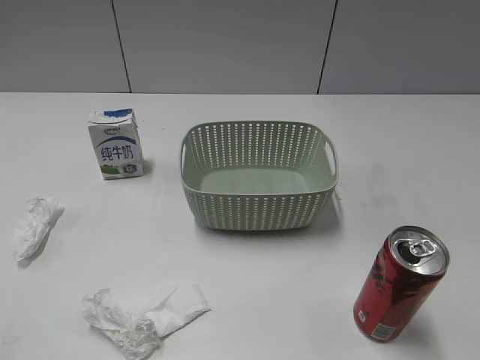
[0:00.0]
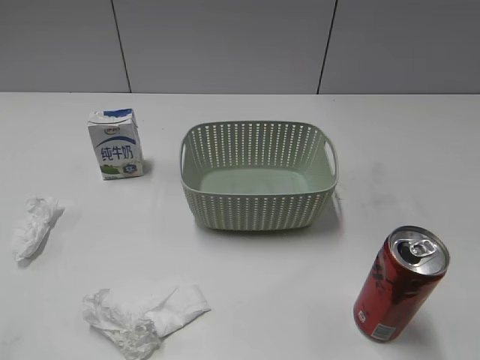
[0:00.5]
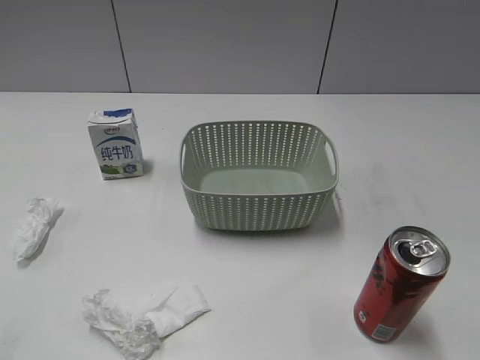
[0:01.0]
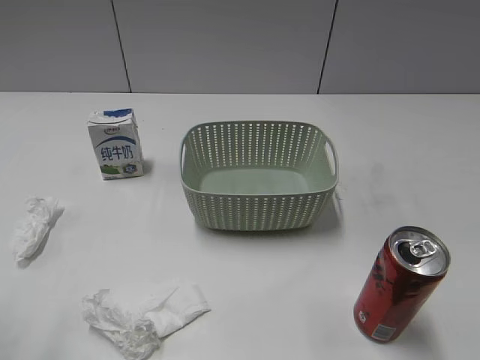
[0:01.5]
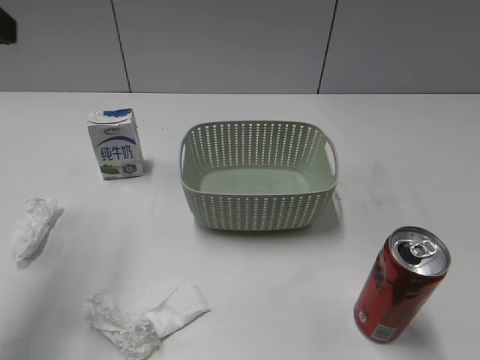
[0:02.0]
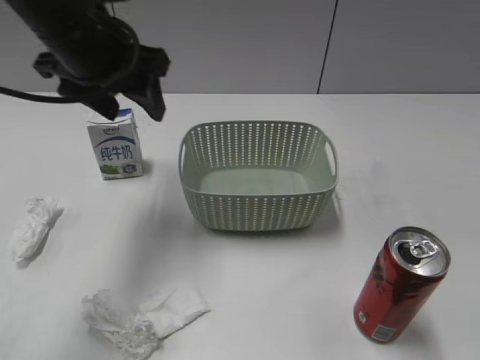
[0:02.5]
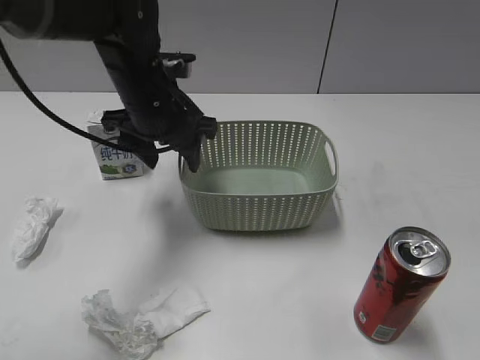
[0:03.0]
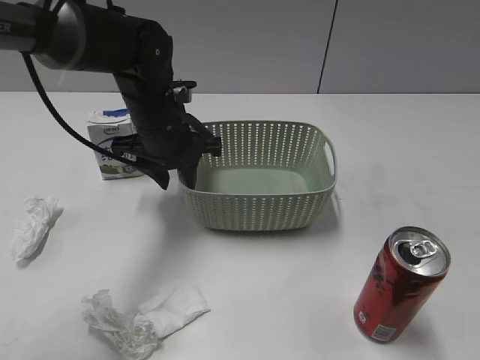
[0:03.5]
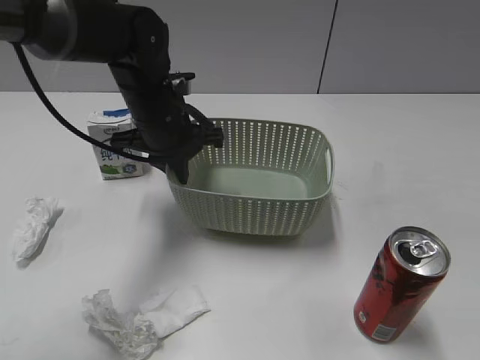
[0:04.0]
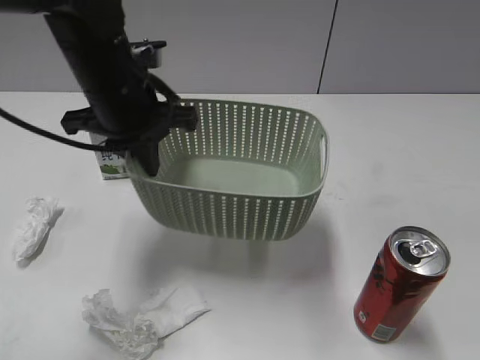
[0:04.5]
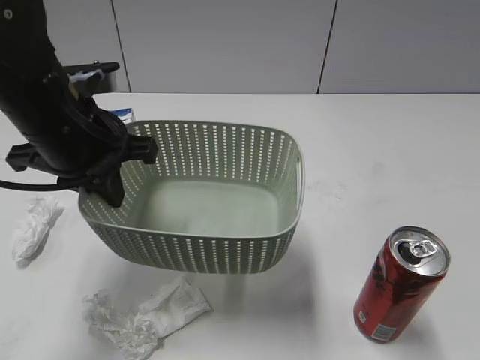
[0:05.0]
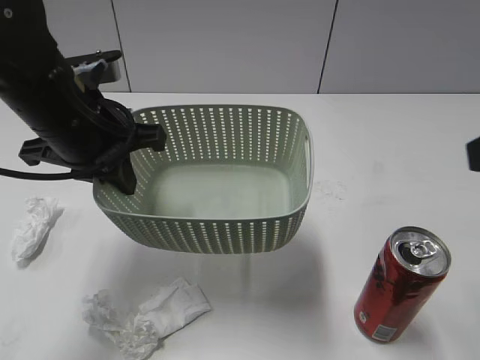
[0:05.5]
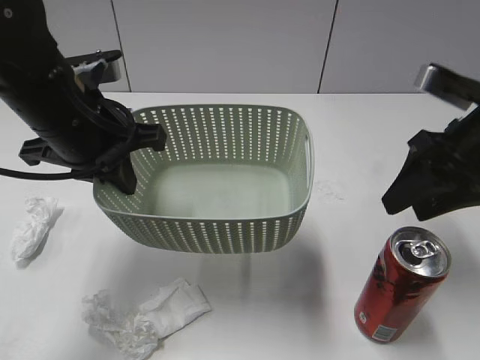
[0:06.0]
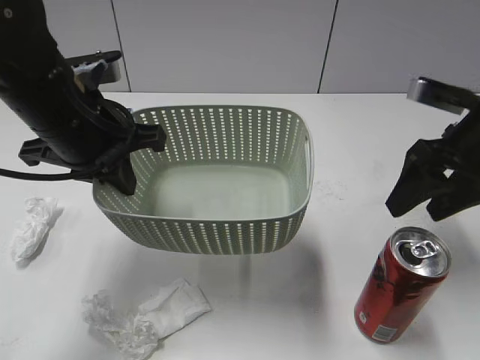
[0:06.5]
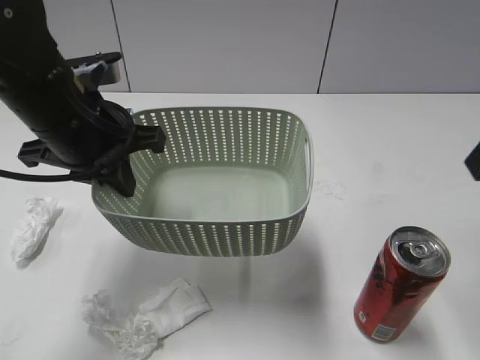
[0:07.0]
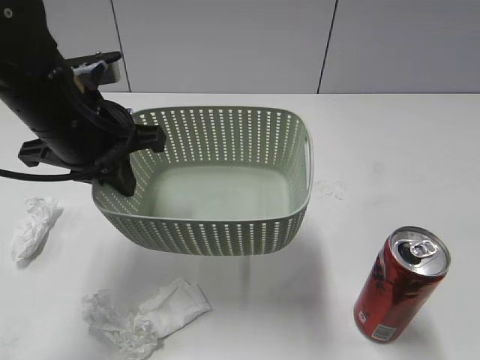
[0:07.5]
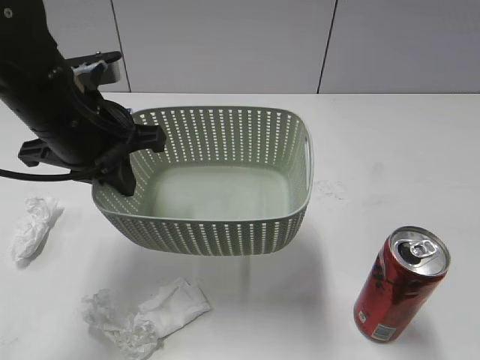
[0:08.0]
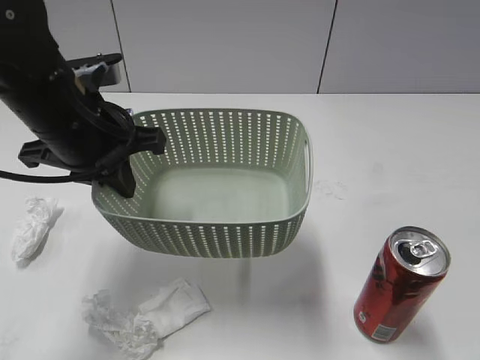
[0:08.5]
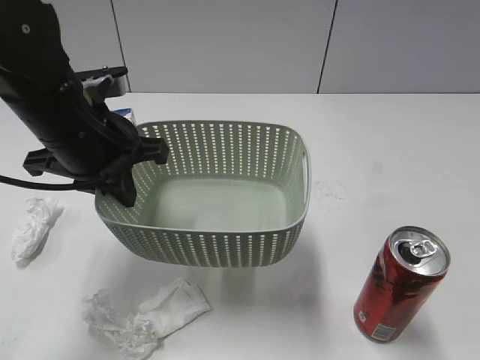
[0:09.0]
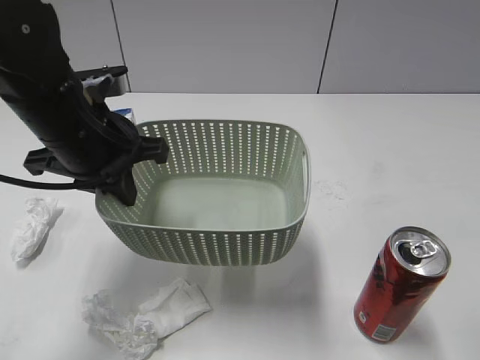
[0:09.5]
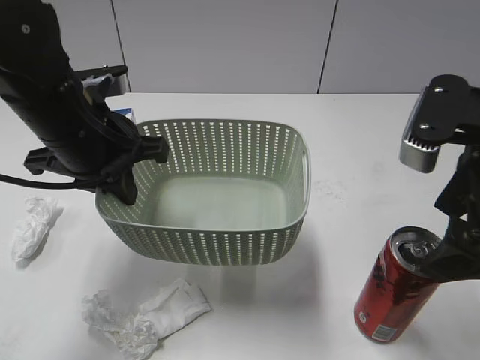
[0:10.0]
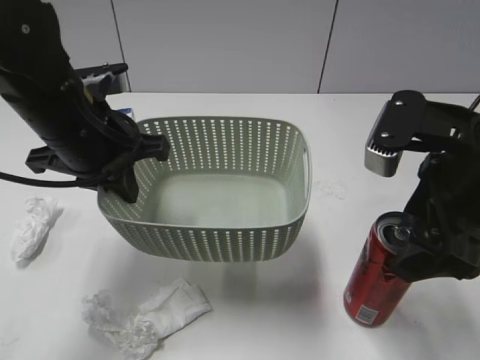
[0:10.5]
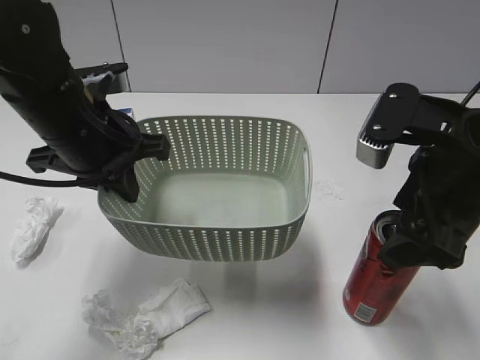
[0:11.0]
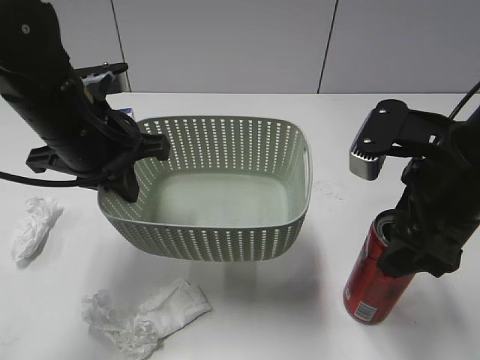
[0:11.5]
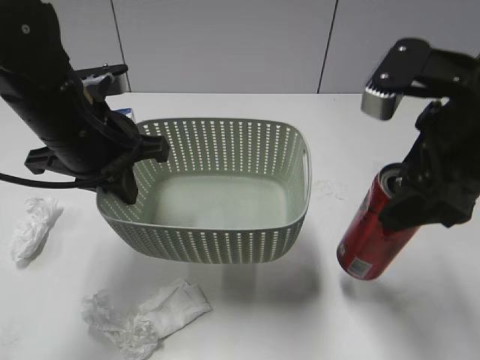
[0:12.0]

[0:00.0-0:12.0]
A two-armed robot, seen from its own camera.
Step, 0:02.0 to 0:03.5: Grasp the basket with left gripper.
Step, 0:04.0 to 0:05.0: Lift the basket with left gripper.
Step, 0:05.5 to 0:11.5: Grasp the cola can with right gripper.
0:02.0 to 0:04.0: The left gripper heads downward, to the right and forward, covering some 30 cm, and closes up.
0:04.0 to 0:06.0: The left gripper goes some 15 cm backward, upward and to the left; the right gripper goes approximately 25 cm forward, and closes up.
0:06.0 to 0:08.0: The right gripper moves backward, roughly 25 cm, and opens up.
0:08.0 to 0:10.0: The right gripper is displaced forward and to the left by roughly 20 cm.
0:10.0 to 0:12.0: The right gripper closes up.

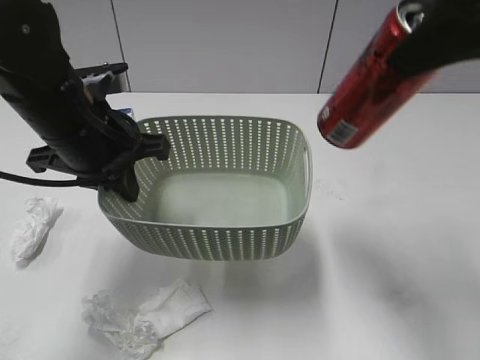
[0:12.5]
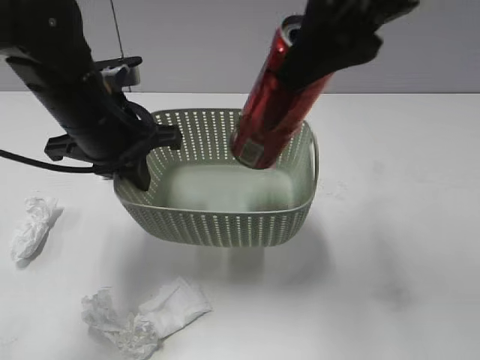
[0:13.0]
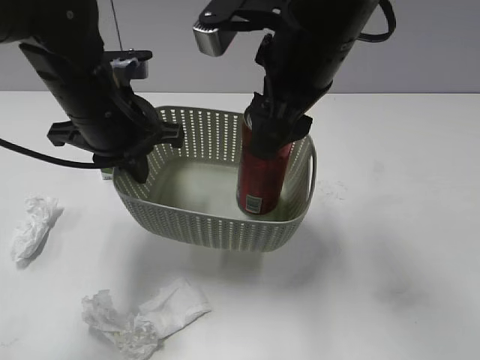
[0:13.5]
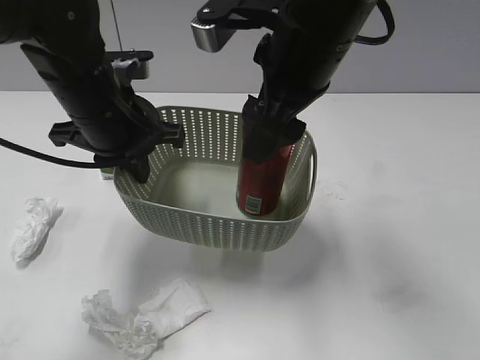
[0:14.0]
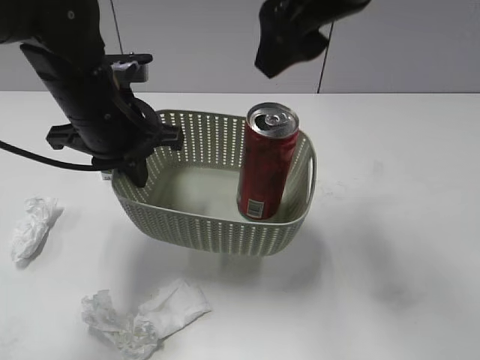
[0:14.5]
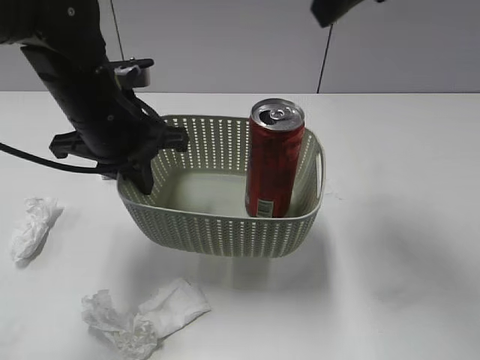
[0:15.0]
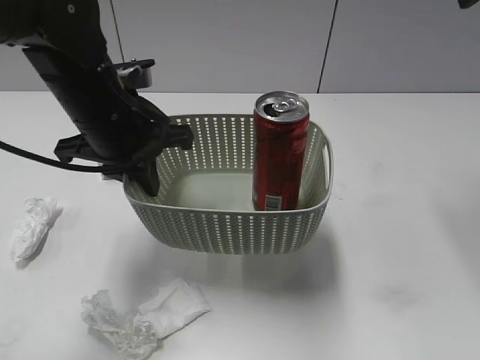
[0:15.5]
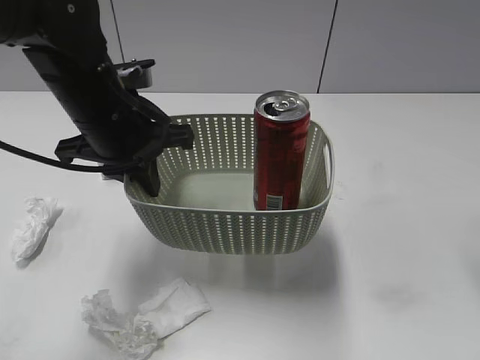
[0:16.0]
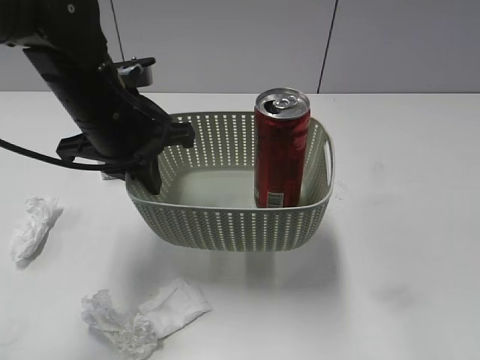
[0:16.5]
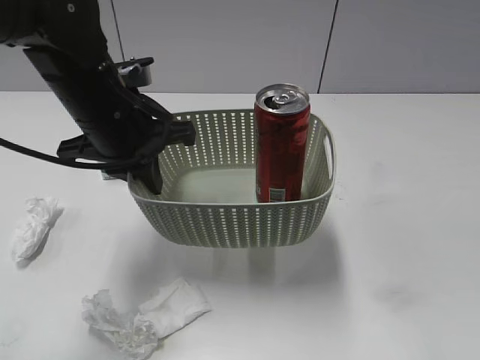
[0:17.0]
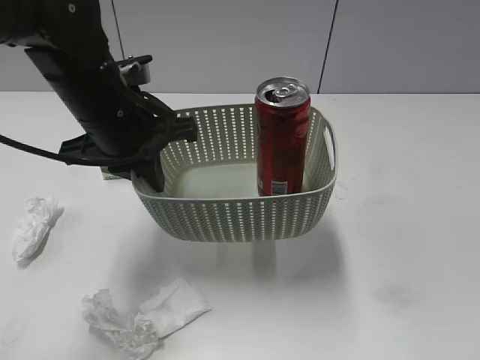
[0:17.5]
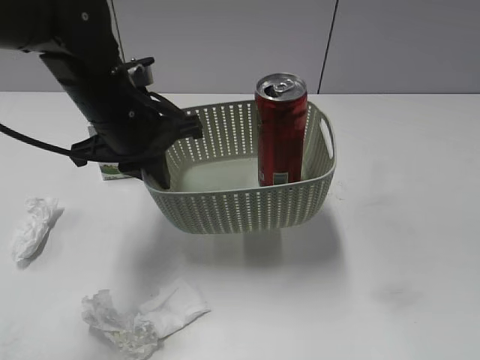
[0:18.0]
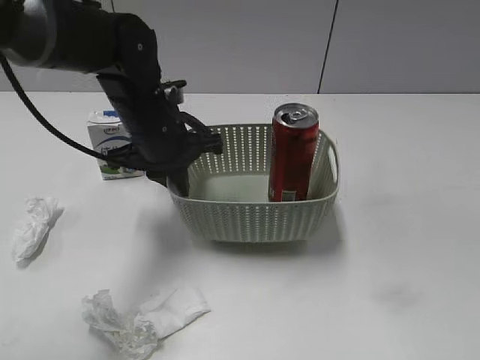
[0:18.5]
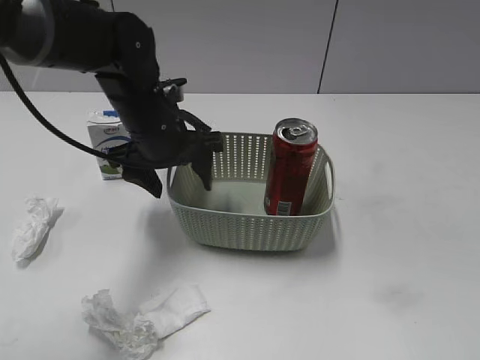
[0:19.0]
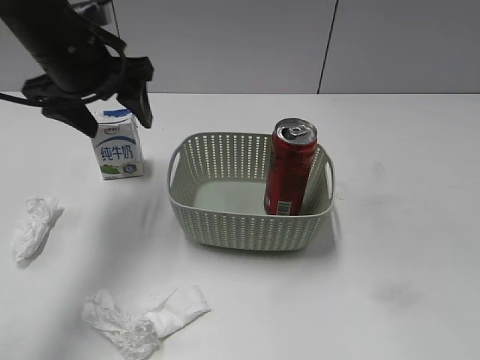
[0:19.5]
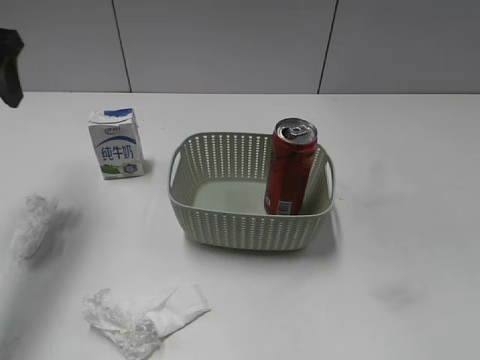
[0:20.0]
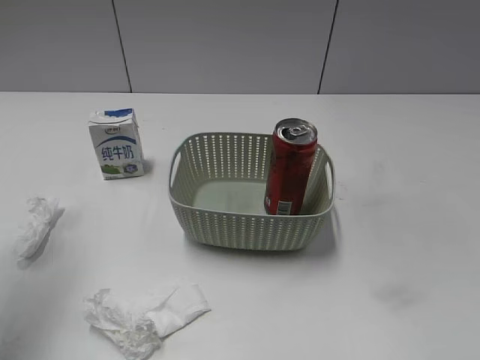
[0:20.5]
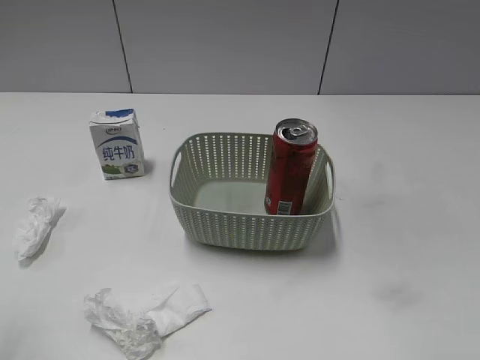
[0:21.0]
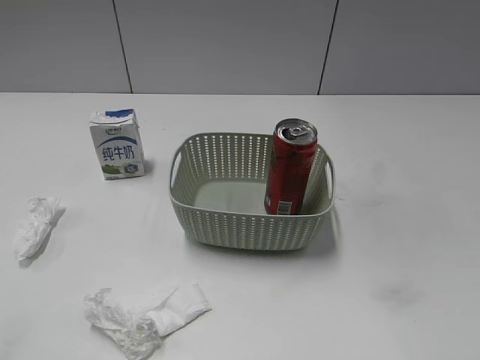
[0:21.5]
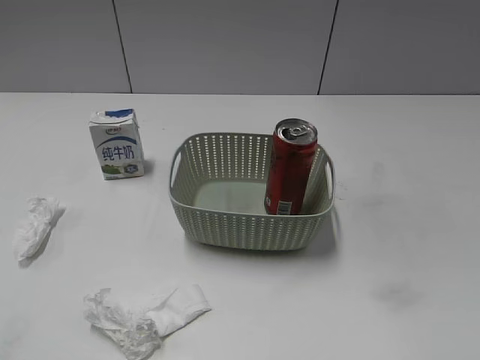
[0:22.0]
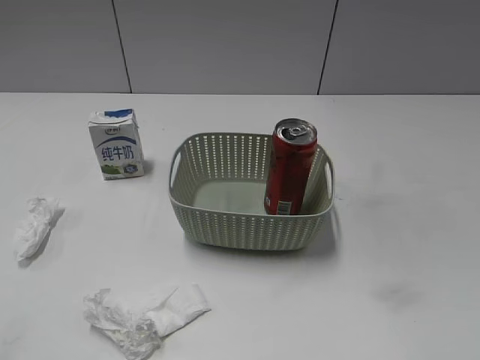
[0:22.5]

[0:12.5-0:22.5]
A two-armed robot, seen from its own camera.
0:12.5 to 0:14.5: The right gripper travels to the left and forward by about 10 cm, and opens.
0:14.5 to 0:16.5: The right gripper goes about 25 cm to the right and backward.
0:16.5 to 0:18.5: The left gripper heads downward, covering some 5 cm; the right gripper goes some 10 cm backward and downward.
0:18.5 to 0:20.5: The left gripper shifts approximately 30 cm to the left, upward and backward, and opens.
0:20.5 to 0:22.5: The left gripper heads backward, covering about 25 cm.

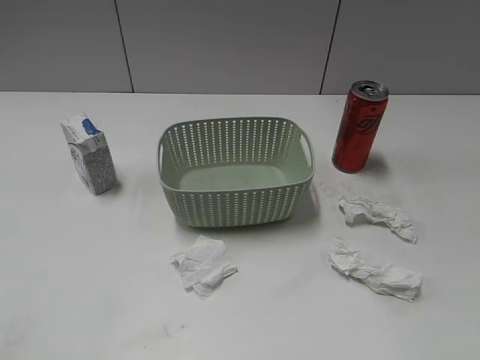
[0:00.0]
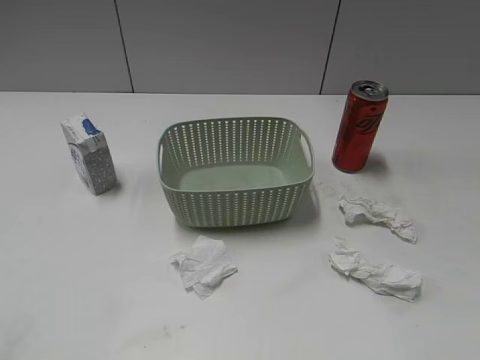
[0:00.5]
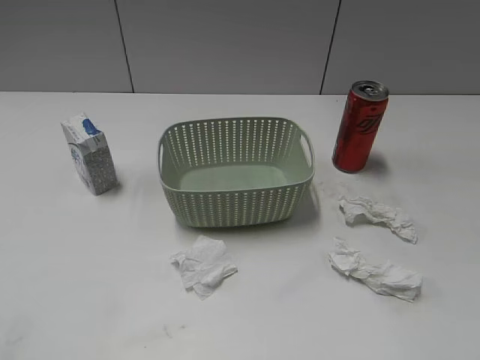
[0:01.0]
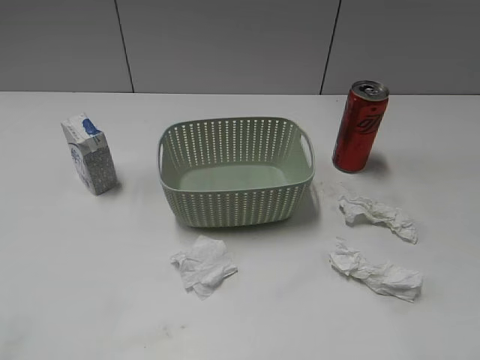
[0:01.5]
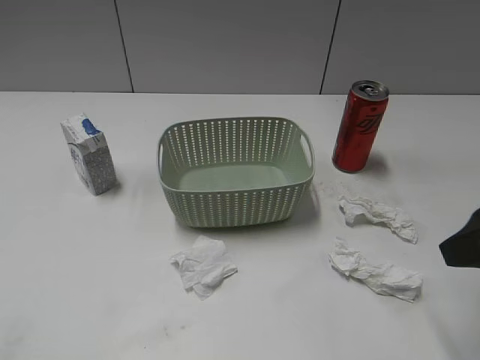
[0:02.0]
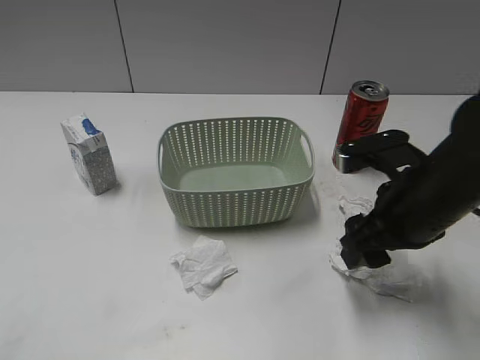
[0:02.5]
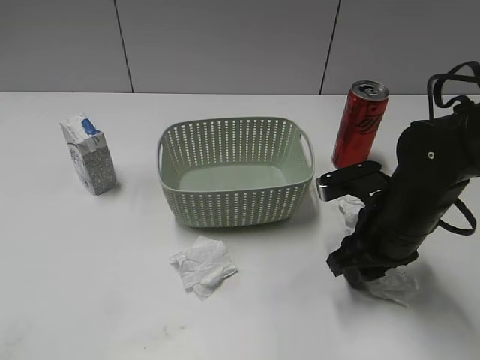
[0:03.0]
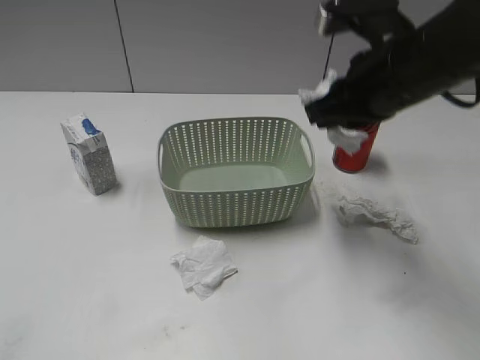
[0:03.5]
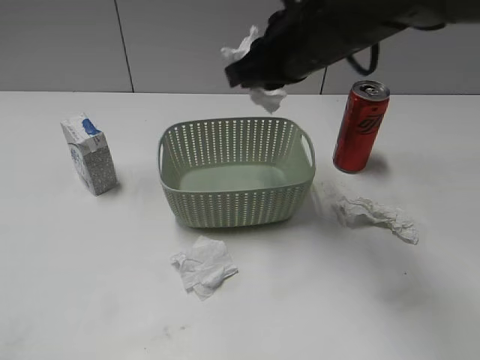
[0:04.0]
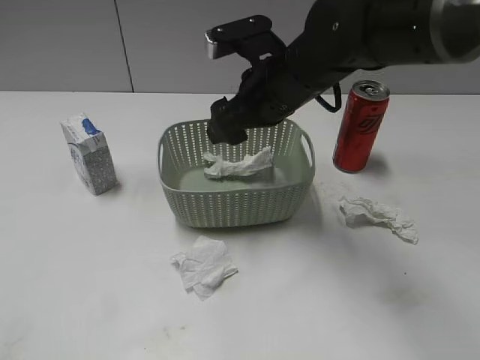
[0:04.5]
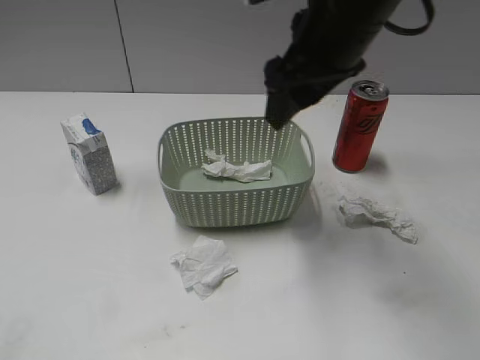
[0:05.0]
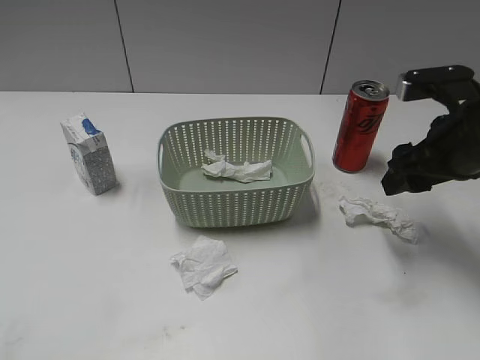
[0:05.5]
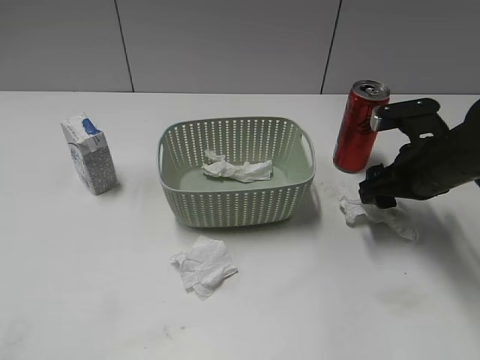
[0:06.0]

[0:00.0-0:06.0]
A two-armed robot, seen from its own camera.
Step, 0:02.0 to 0:03.0: Grasp the waste paper with right gripper.
Step, 0:03.5 to 0:04.5: Place the waste paper in the basket with right gripper.
0:02.0 to 0:04.0: The right gripper moves to the left and forward, some 25 cm, and closes up, while the left gripper opens up.
0:04.0 to 0:06.0: The right gripper goes roughly 20 cm to the right and downward, and opens its fingers.
